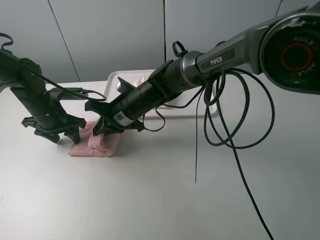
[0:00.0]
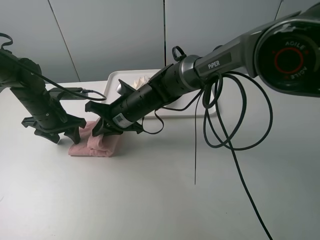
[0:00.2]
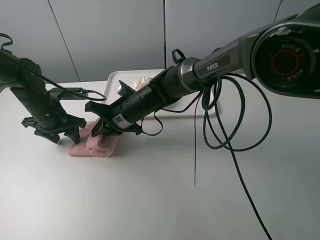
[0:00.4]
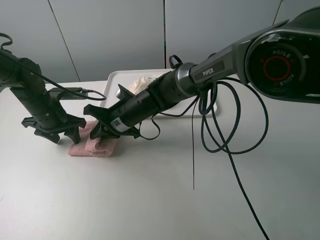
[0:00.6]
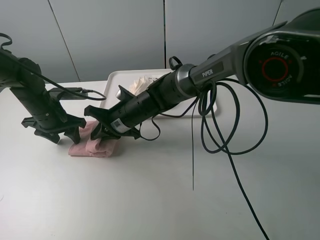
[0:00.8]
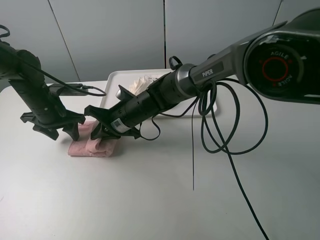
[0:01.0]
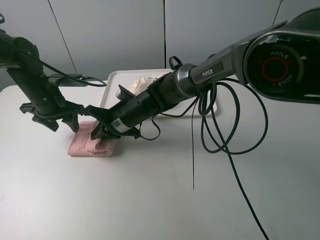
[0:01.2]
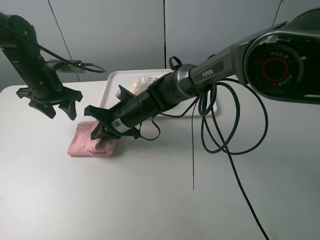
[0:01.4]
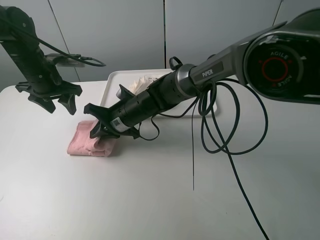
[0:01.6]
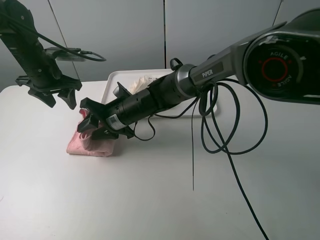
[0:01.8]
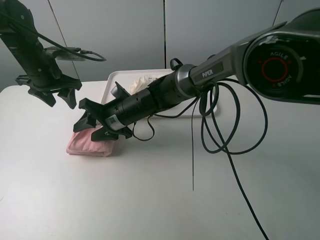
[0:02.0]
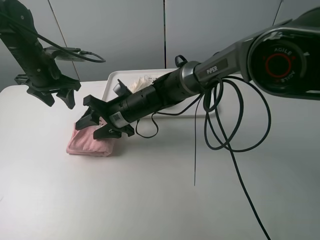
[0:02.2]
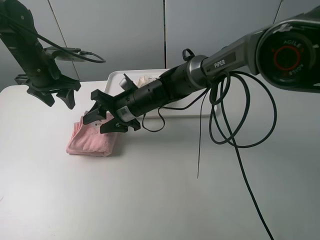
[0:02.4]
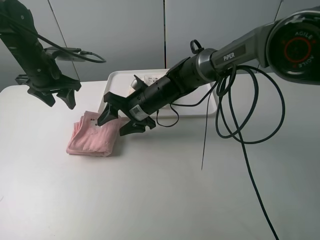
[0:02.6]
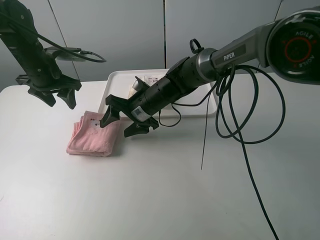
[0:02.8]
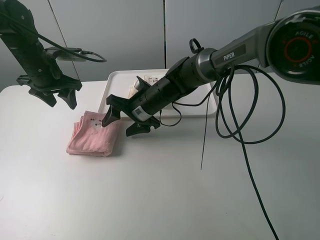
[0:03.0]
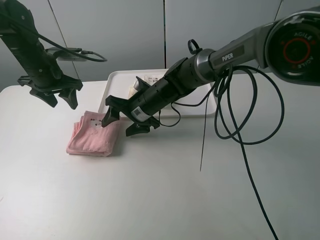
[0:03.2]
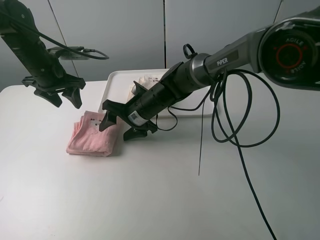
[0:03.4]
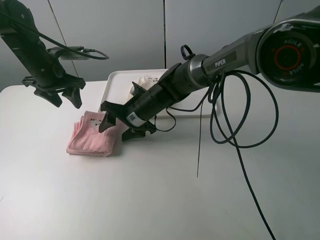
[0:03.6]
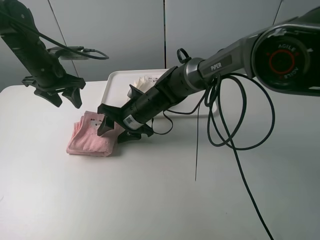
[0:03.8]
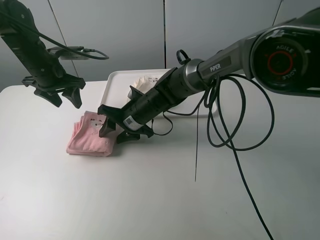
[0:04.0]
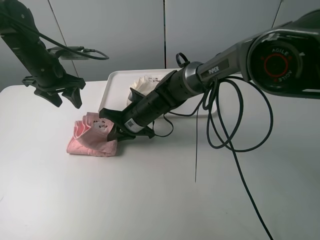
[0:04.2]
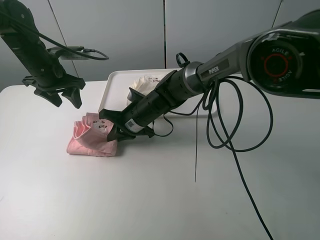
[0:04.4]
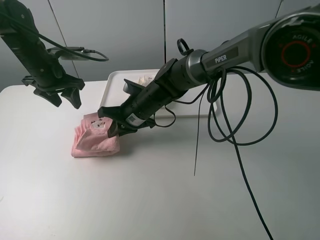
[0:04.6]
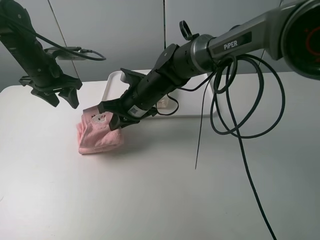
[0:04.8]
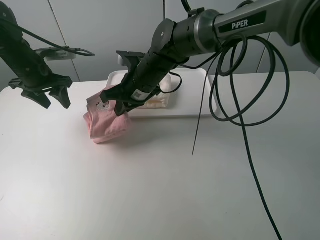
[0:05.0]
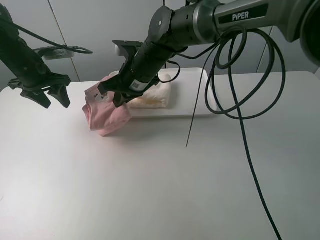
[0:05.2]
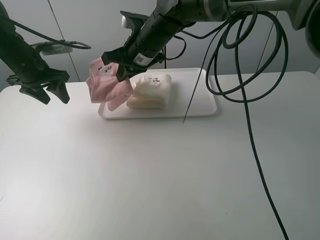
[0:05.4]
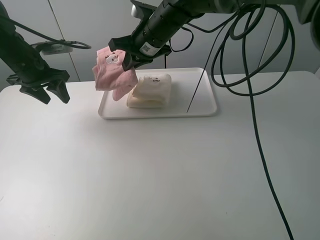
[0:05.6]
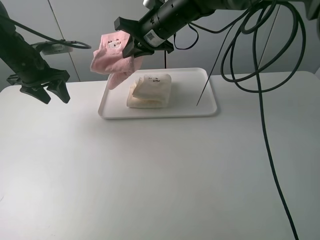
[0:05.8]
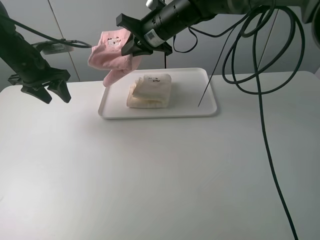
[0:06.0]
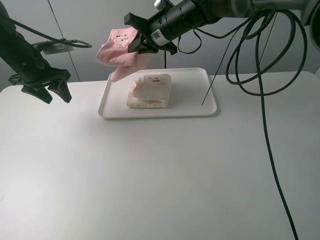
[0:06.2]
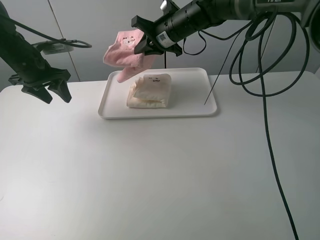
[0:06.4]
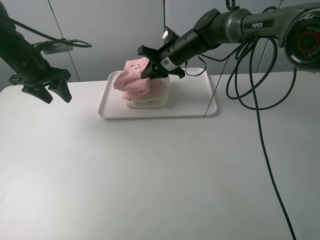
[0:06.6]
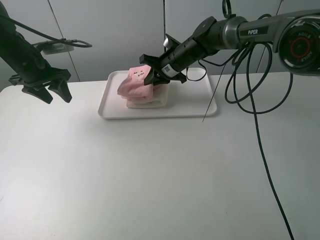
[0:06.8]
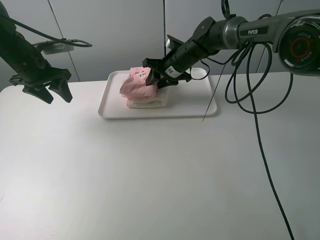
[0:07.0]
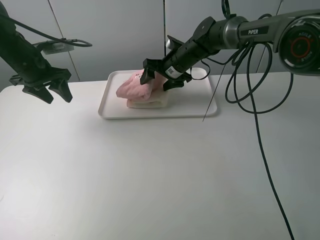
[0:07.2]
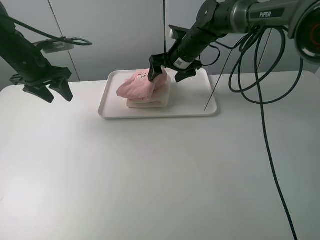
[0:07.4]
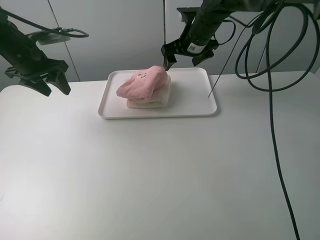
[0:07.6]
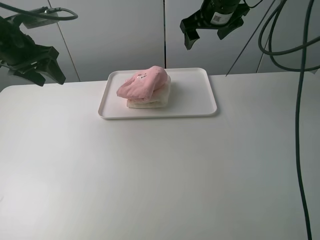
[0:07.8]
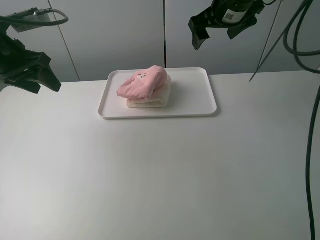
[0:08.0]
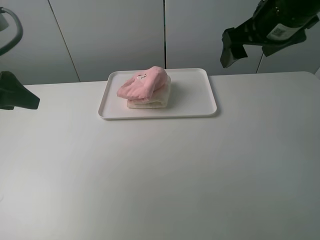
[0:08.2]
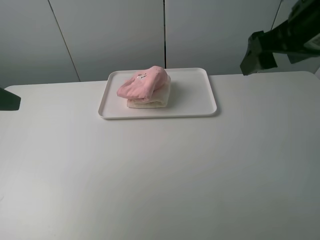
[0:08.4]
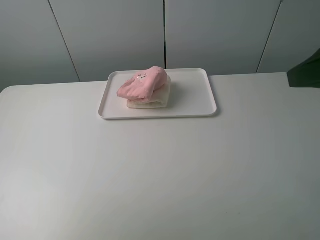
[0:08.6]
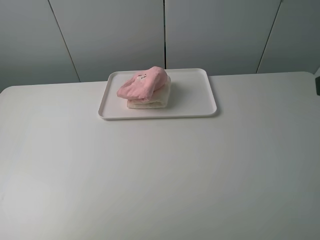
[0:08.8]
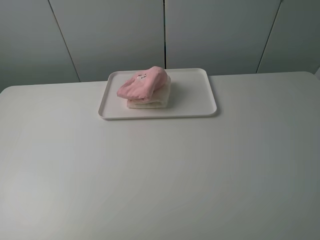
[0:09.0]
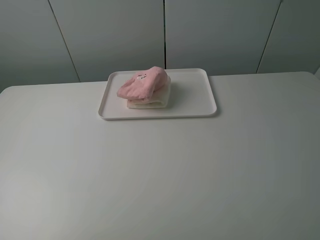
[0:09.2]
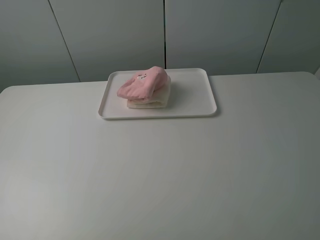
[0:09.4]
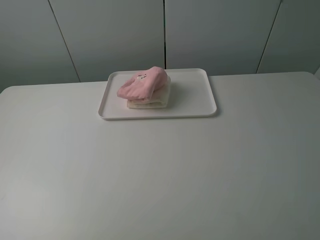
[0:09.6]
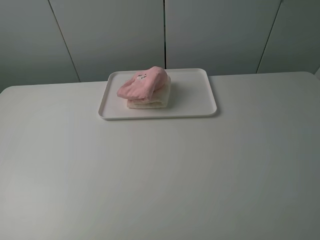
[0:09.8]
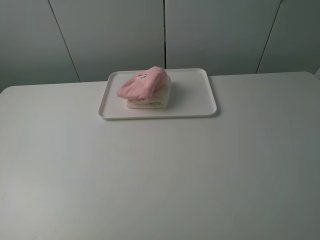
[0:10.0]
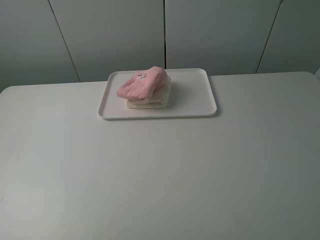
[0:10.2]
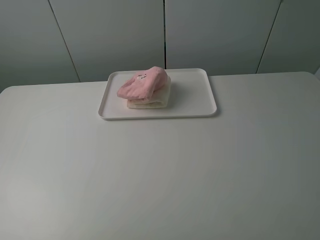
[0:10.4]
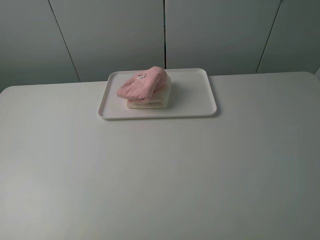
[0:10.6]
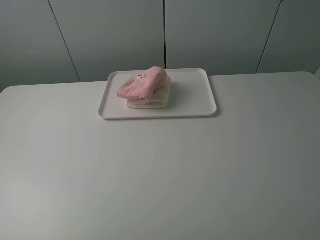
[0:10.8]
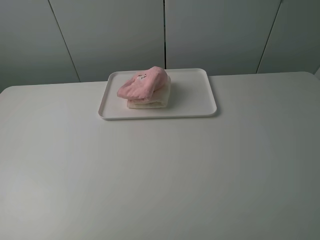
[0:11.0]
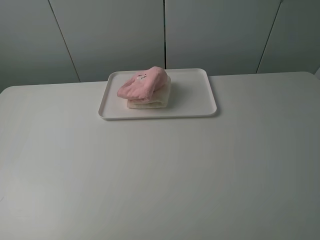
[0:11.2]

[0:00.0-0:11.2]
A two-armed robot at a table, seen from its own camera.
Task of the whole recording: fold one of the towels by two grippers and place it on the tray,then fold another towel by two grippers and place it on the folded towel.
Step, 0:00.0 to 0:02.0: Fold the pink towel from right to left with right gripper.
Step, 0:02.2 to 0:04.2: Grasp the pink towel with the right gripper.
Step, 0:04.4 to 0:07.4: Place the pink towel on the white towel with the right gripper.
0:00.0 to 0:01.6: The left gripper travels upward by some 10 cm.
0:01.6 to 0:03.2: The right gripper opens its fingers.
0:03.2 to 0:04.8: The right gripper closes.
0:04.8 to 0:06.4: The right gripper goes some 15 cm forward, upward and to the right.
0:06.4 to 0:08.0: The left gripper goes approximately 10 cm backward and upward. Meanwhile the right gripper shifts some 15 cm to the right, upward and backward, and opens up.
0:08.0 to 0:09.6: The two grippers go about 35 cm backward.

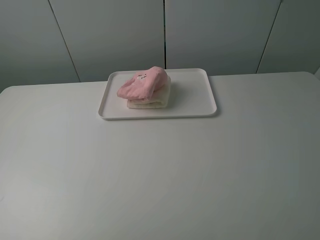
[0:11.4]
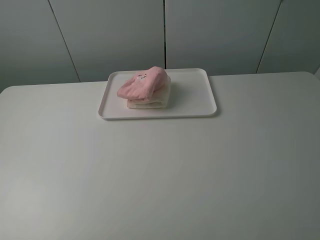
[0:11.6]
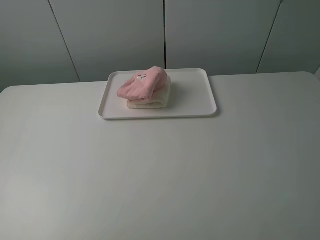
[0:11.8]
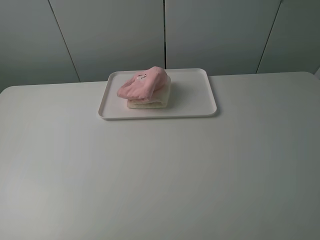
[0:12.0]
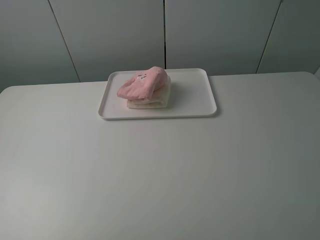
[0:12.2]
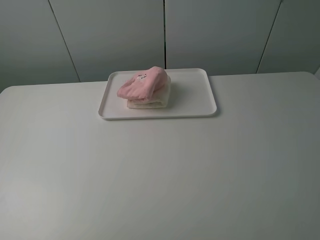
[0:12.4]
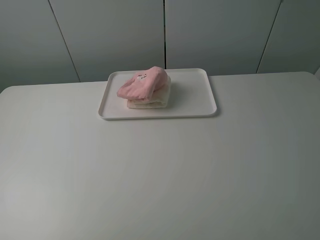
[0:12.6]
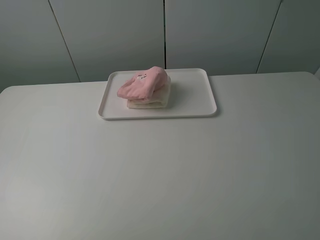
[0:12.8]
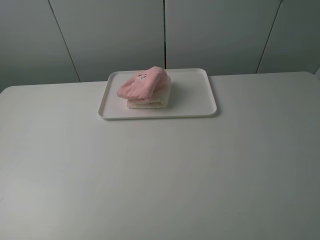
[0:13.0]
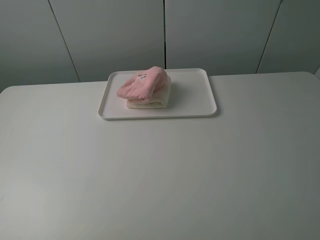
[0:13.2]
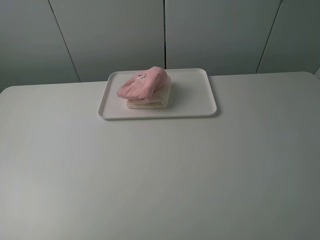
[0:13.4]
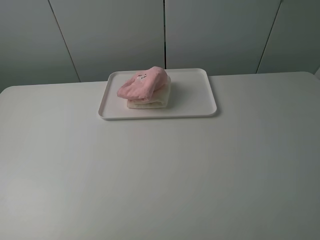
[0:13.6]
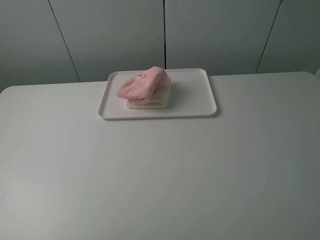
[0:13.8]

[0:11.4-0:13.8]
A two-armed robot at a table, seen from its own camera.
Task of the whole recording: fold one of the towels by two grippers and place it on the tray,then fold another towel by two grippers and place it on the folded towel.
0:11.4 to 0:13.8: Neither gripper changes place.
